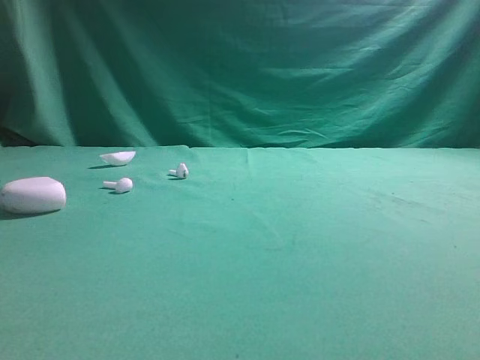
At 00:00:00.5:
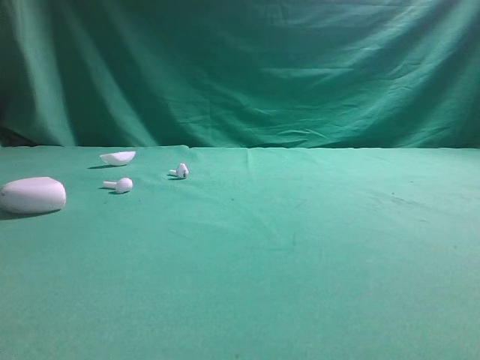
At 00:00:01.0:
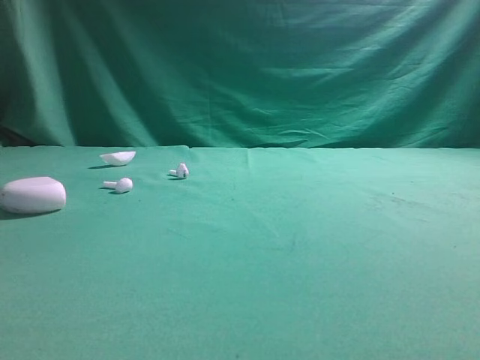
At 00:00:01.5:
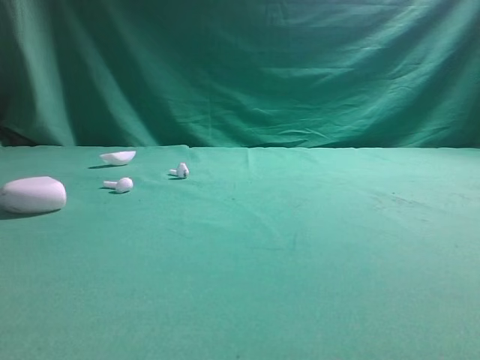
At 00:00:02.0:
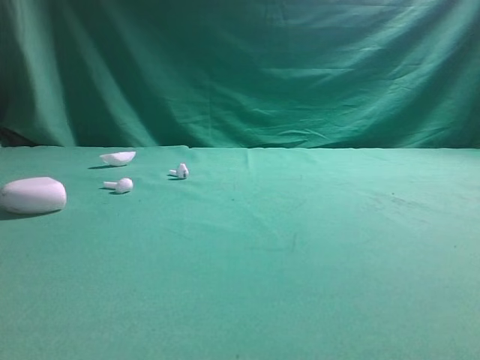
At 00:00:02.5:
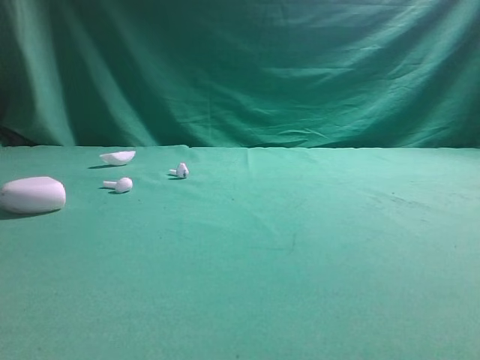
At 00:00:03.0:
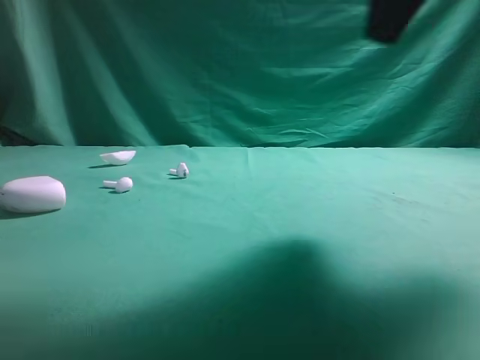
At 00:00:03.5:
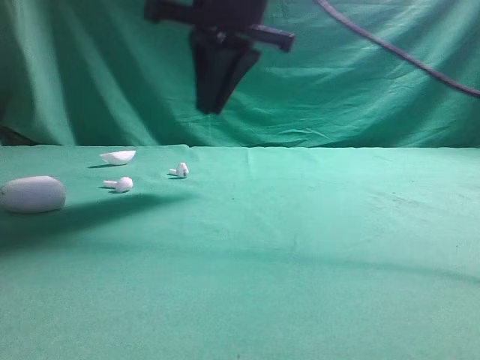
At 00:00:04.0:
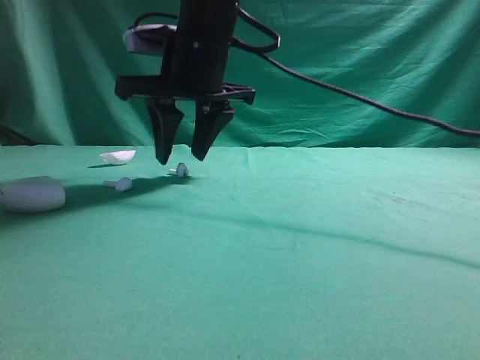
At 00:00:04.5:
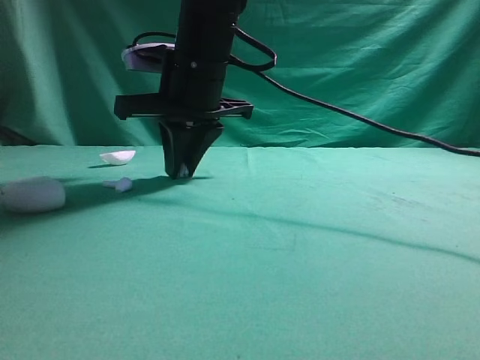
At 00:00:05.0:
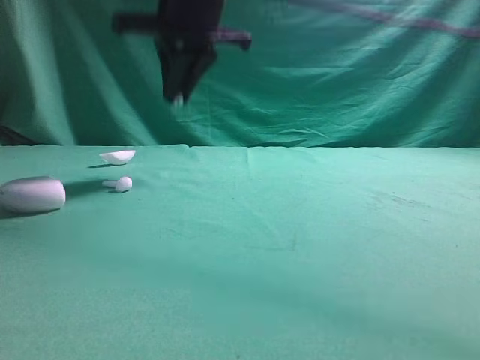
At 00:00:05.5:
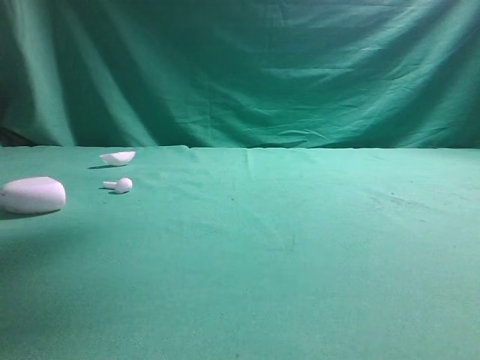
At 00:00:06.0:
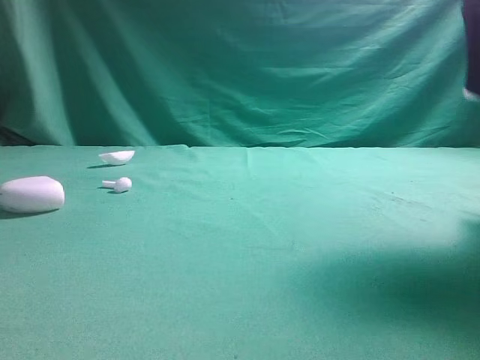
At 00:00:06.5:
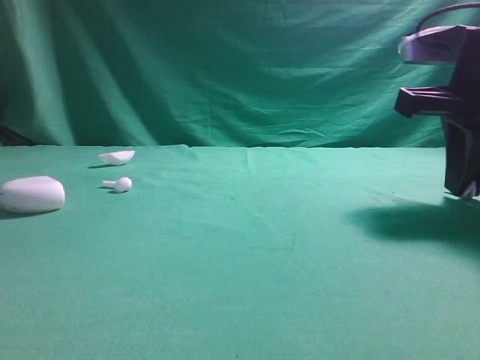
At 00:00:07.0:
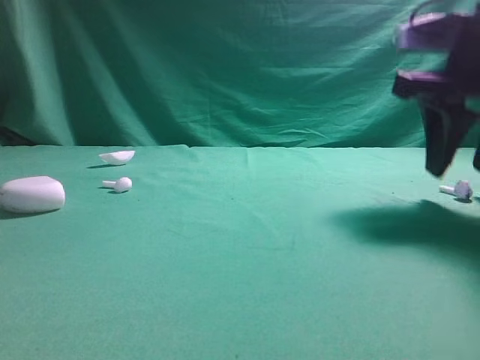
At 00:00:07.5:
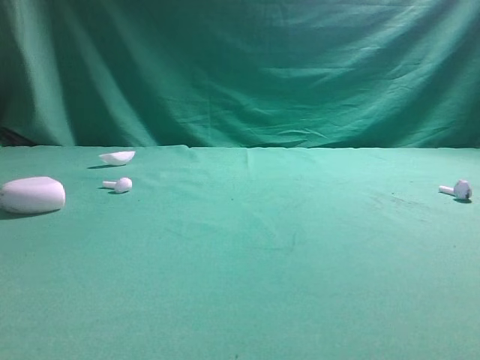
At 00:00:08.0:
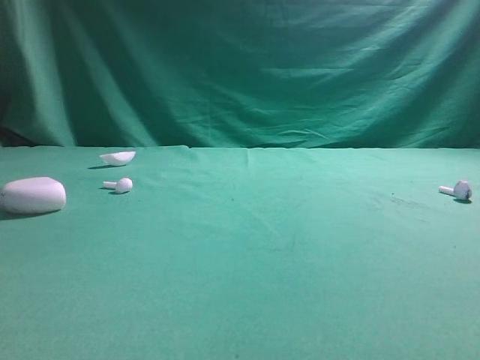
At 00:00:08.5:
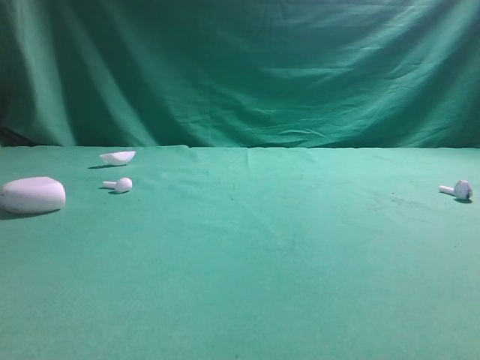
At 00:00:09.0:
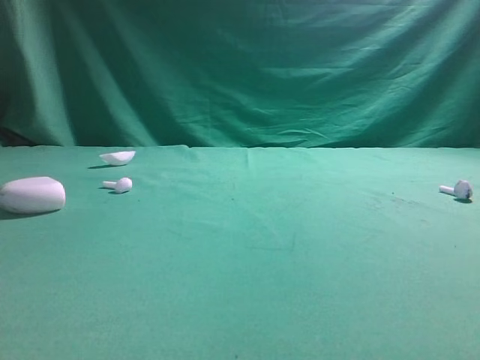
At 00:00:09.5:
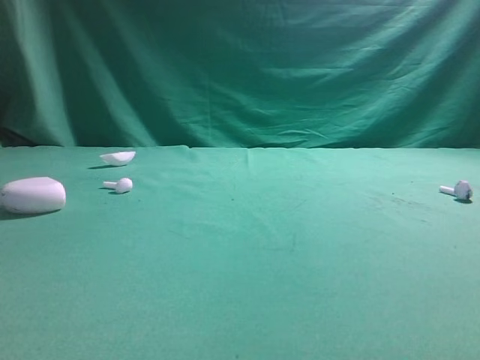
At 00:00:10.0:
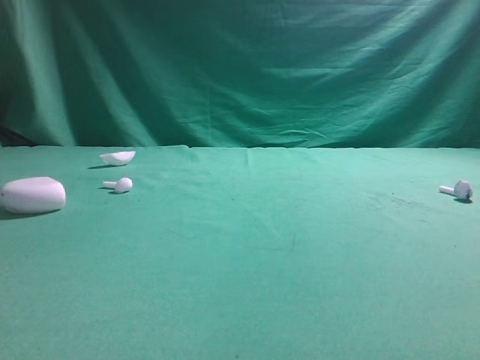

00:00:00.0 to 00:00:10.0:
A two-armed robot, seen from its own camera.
Step, 00:00:00.0 to 00:00:05.0: Grasp the Bluetooth earbud.
Step, 00:00:05.5 to 00:00:07.0: Place bluetooth earbud on the right side of the table.

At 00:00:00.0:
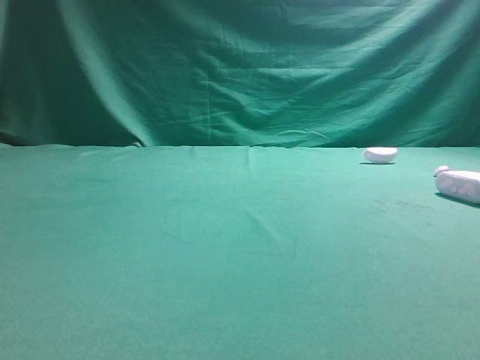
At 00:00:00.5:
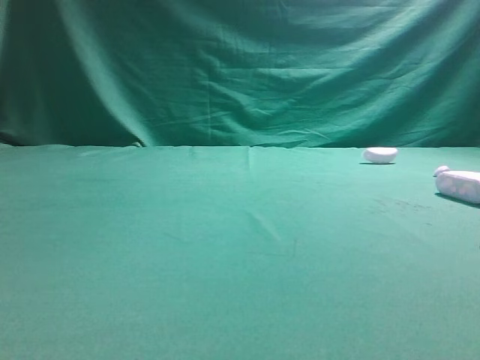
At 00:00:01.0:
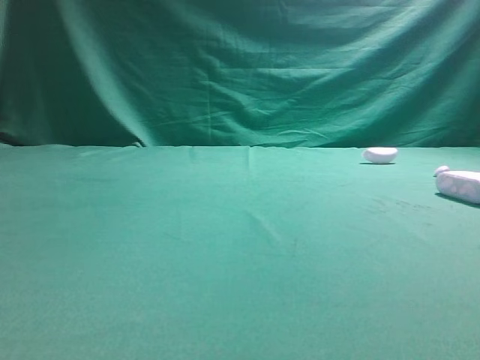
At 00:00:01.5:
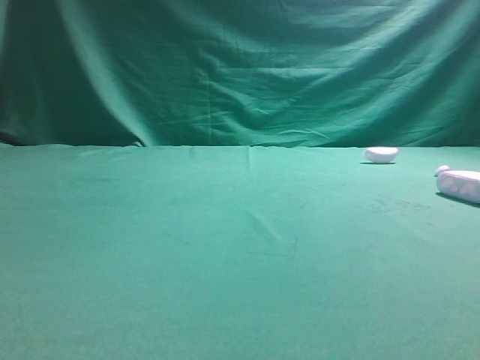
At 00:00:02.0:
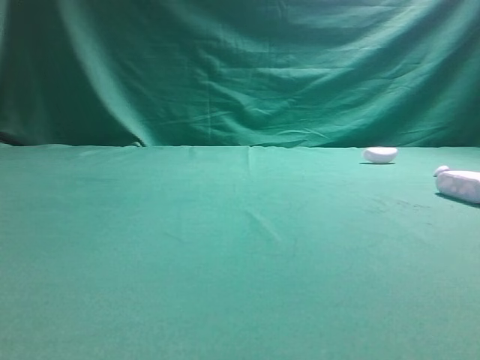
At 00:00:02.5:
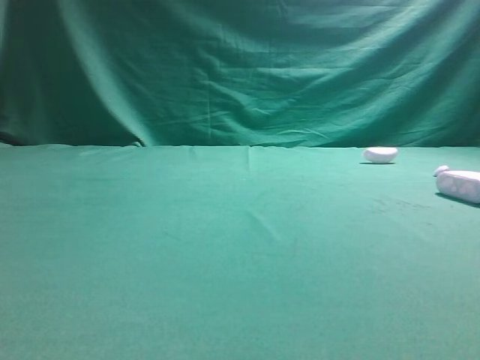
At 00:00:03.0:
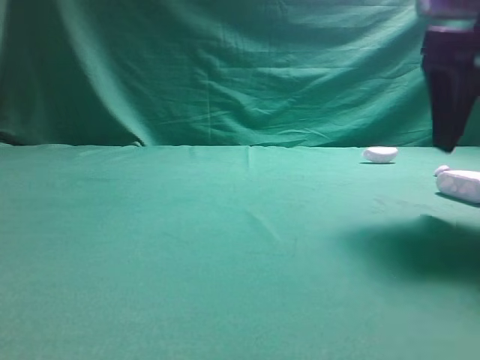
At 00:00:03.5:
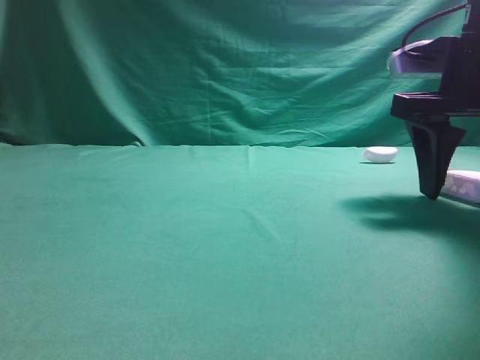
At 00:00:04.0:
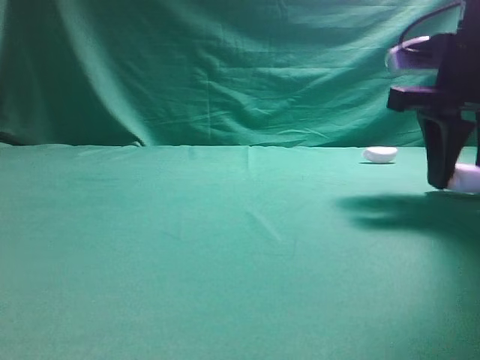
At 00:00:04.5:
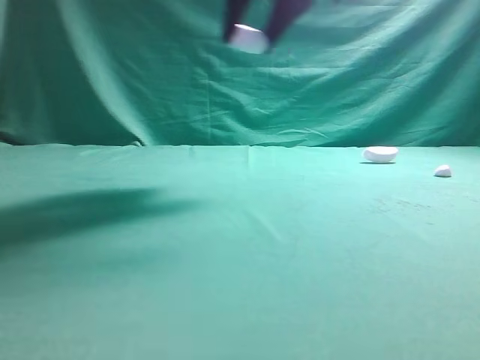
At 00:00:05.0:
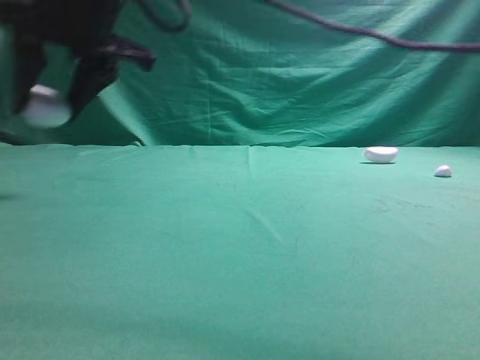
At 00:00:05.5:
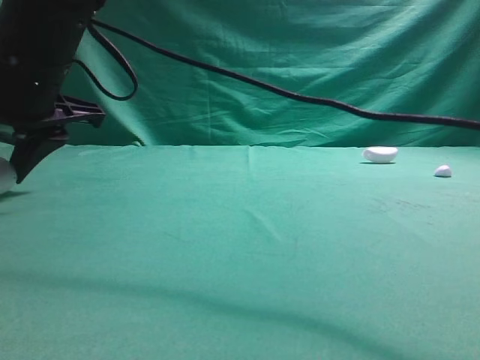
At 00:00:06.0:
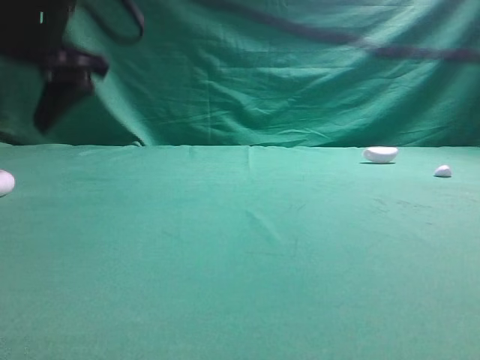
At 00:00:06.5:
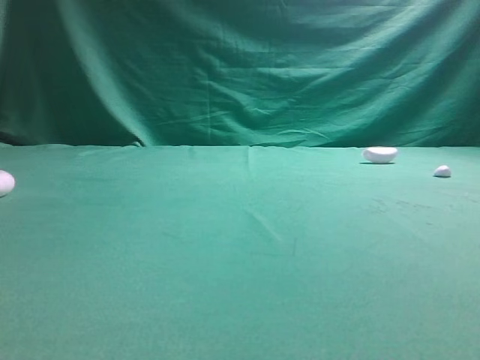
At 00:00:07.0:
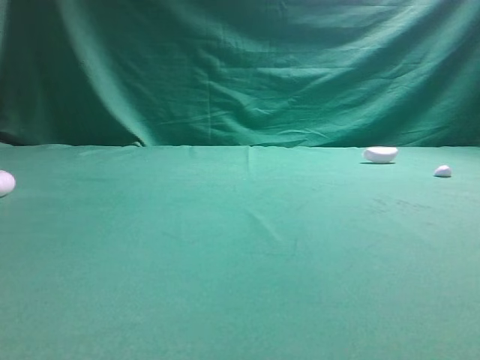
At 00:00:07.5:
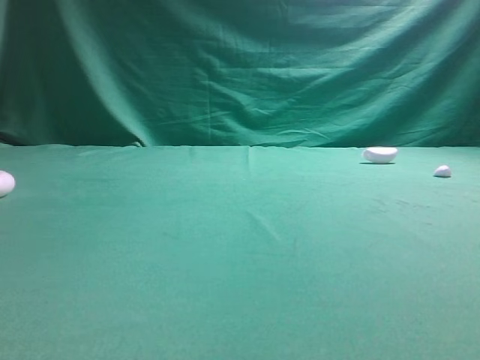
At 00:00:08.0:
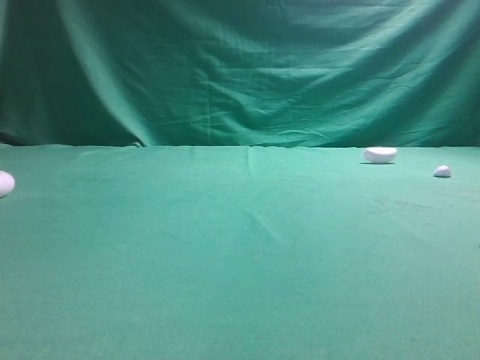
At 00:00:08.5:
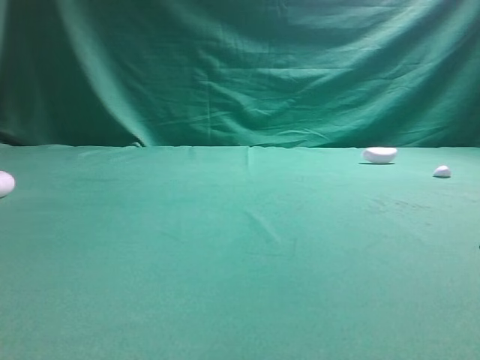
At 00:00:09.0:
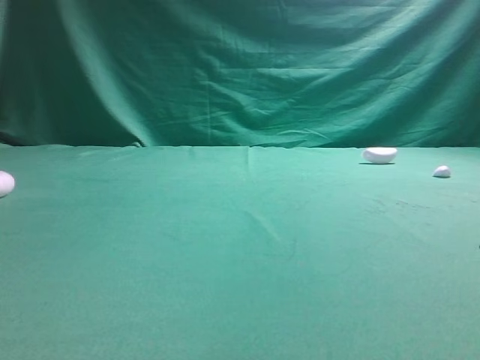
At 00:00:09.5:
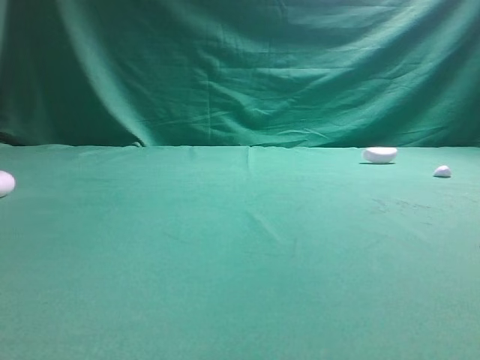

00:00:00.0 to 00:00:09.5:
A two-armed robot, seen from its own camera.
Step, 00:00:00.0 to 00:00:03.0: Grasp the Bluetooth earphone case.
Step, 00:00:03.5 to 00:00:06.0: Place bluetooth earphone case on the left side of the table.

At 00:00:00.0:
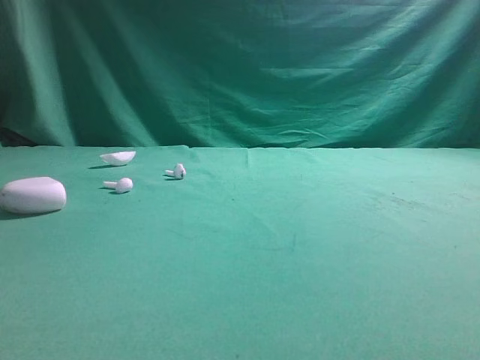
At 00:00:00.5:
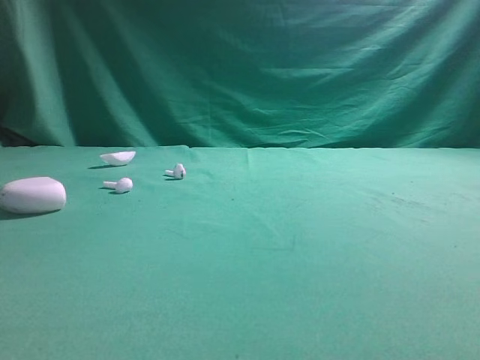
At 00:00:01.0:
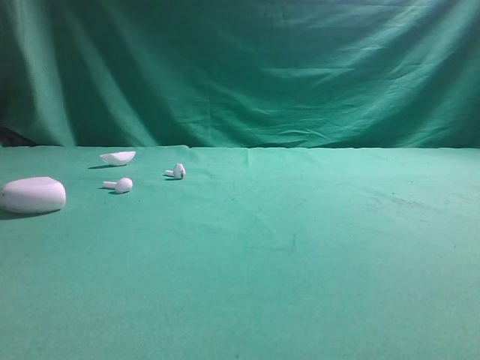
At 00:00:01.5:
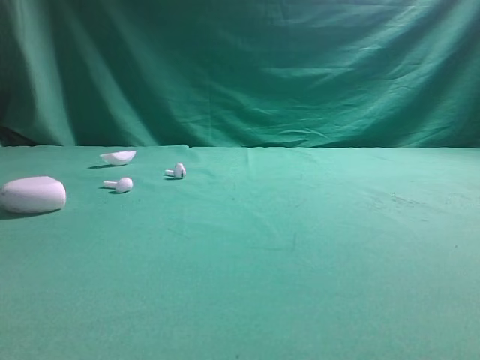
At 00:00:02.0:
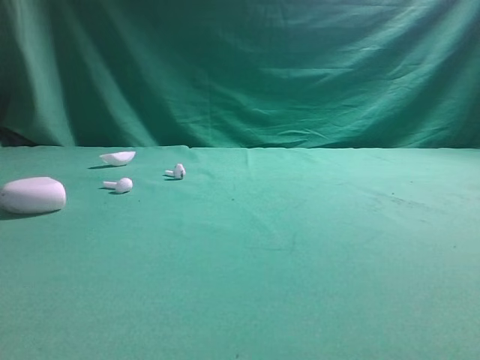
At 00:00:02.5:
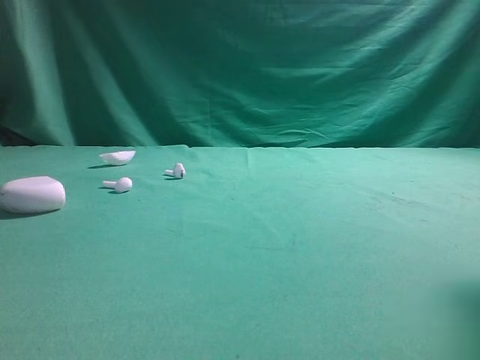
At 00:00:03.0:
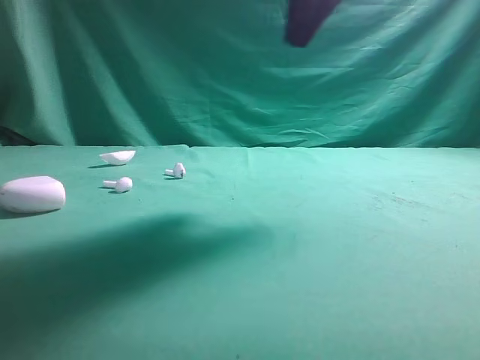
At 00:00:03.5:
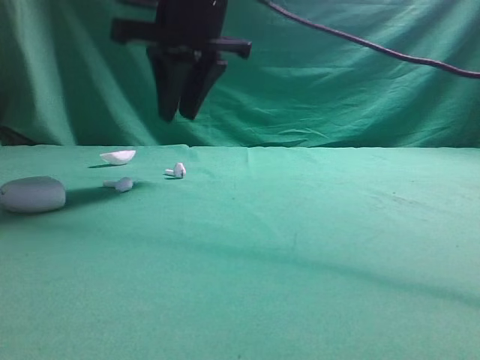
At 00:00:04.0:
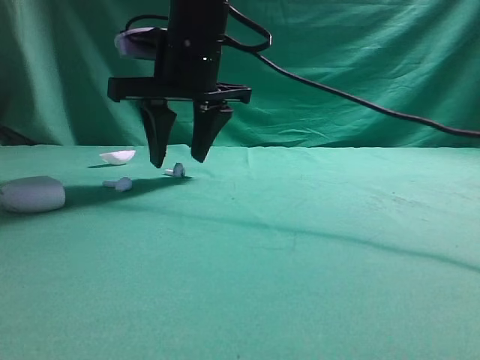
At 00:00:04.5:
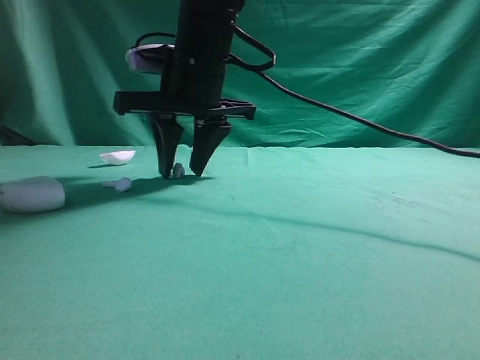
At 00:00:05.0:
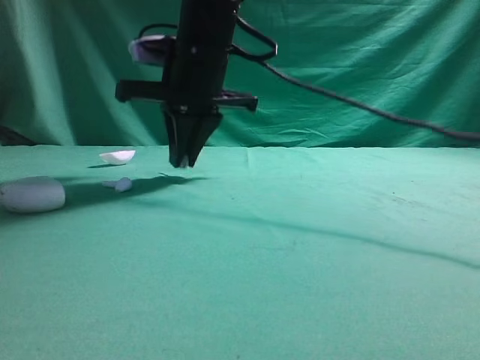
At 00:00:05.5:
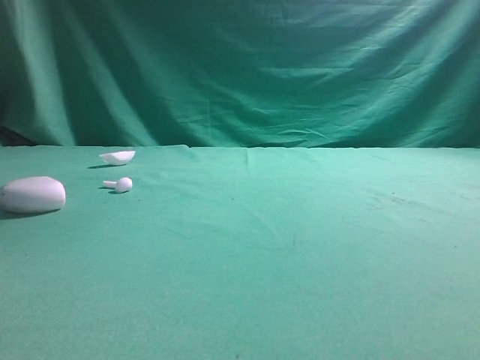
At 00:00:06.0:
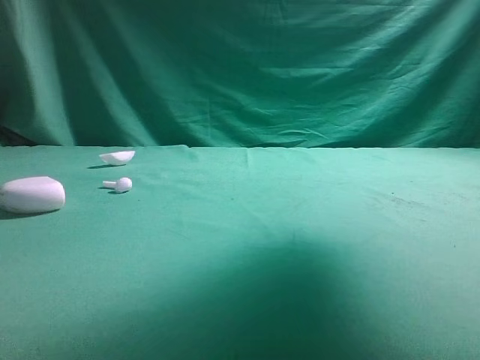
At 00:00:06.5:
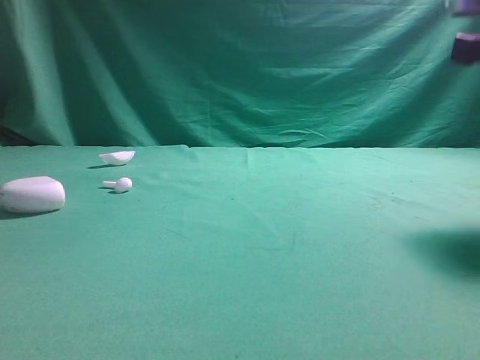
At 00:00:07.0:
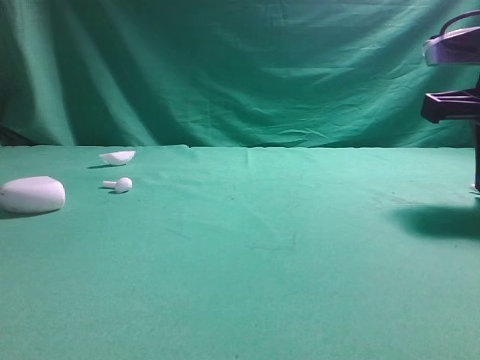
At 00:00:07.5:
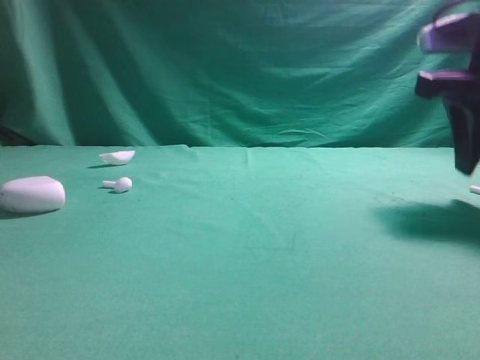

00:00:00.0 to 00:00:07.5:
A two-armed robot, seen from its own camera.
Step, 00:00:00.0 to 00:00:05.5: Grasp the Bluetooth earbud.
